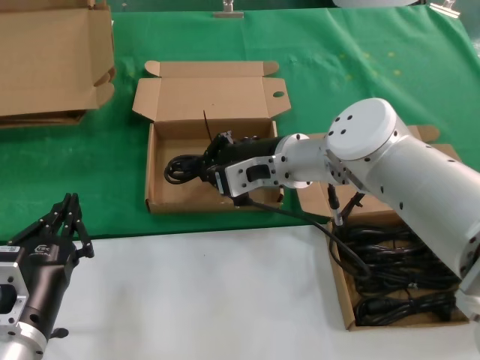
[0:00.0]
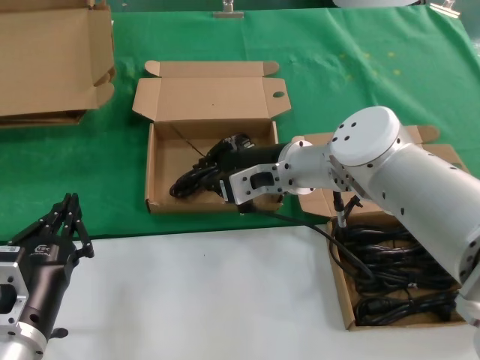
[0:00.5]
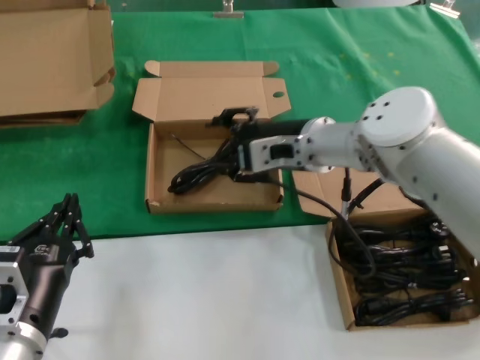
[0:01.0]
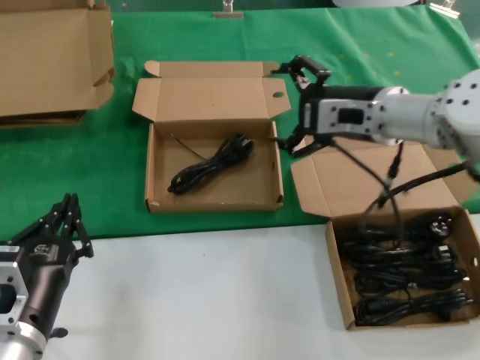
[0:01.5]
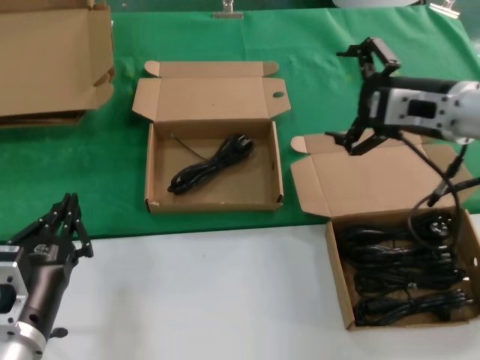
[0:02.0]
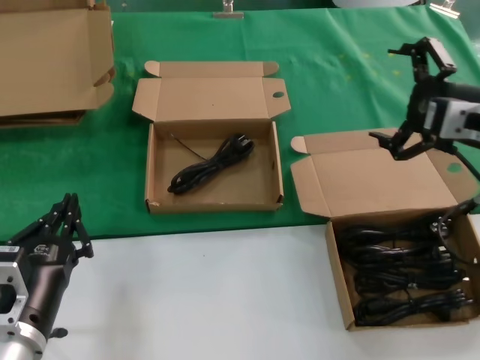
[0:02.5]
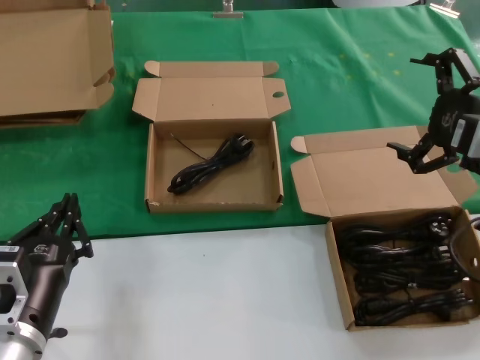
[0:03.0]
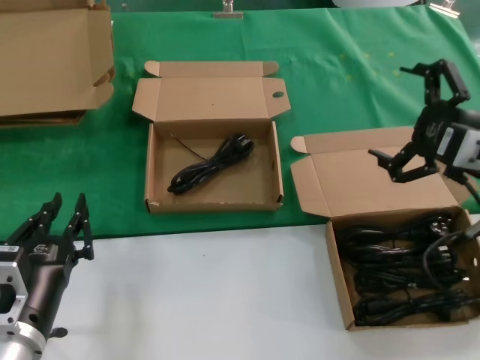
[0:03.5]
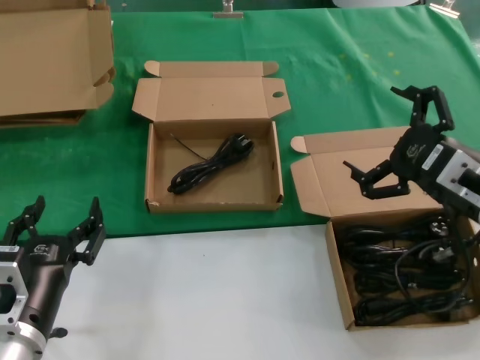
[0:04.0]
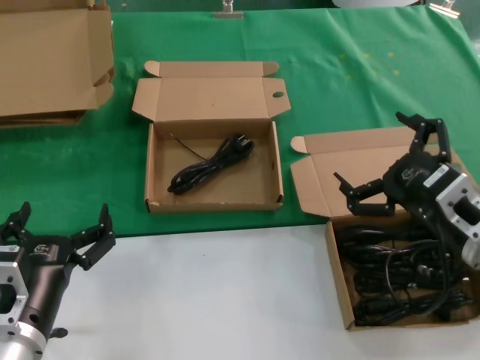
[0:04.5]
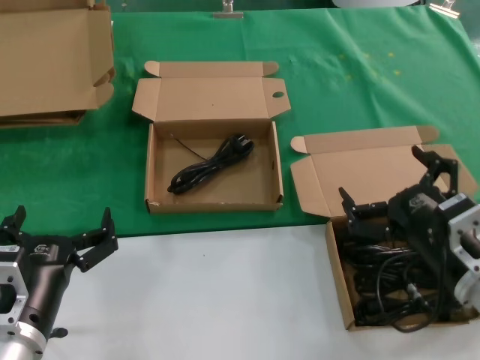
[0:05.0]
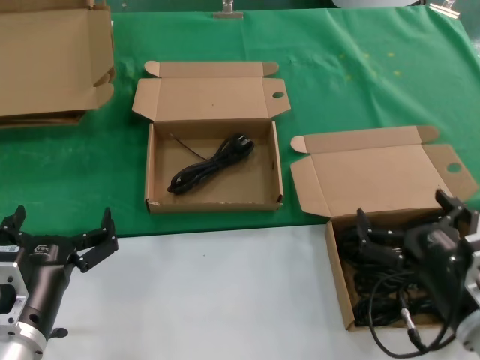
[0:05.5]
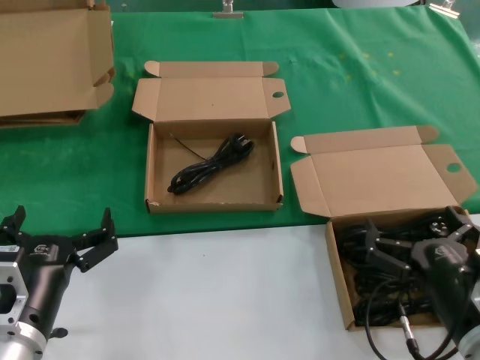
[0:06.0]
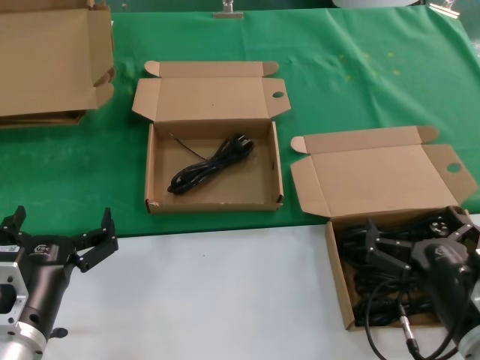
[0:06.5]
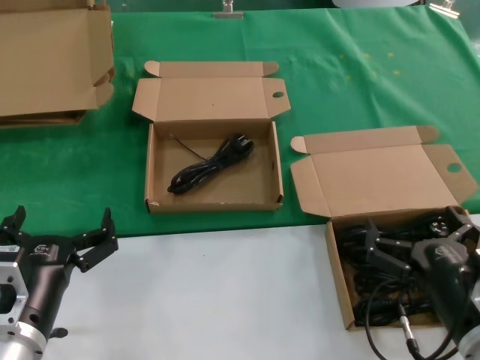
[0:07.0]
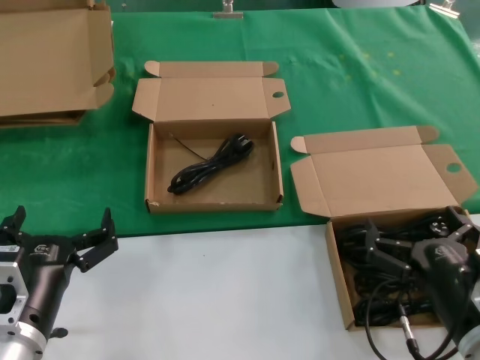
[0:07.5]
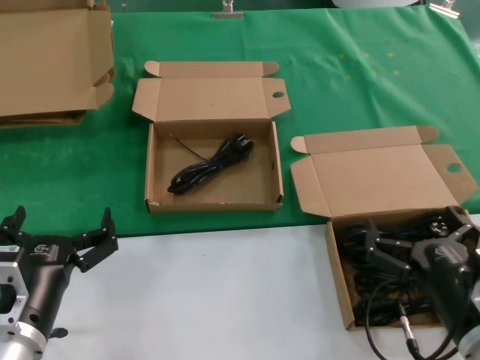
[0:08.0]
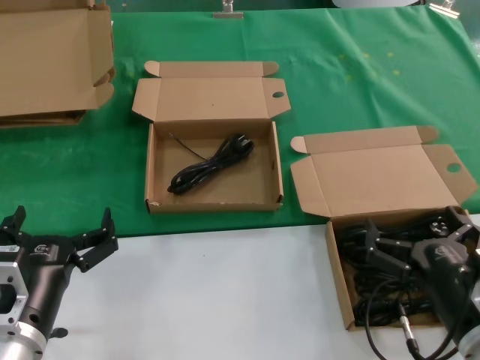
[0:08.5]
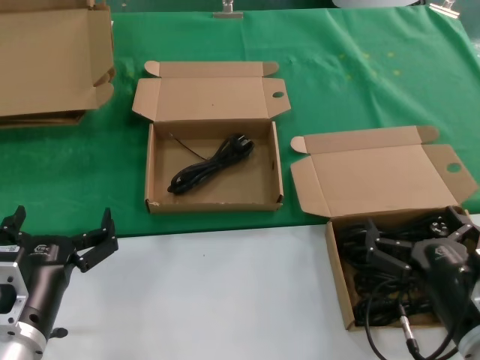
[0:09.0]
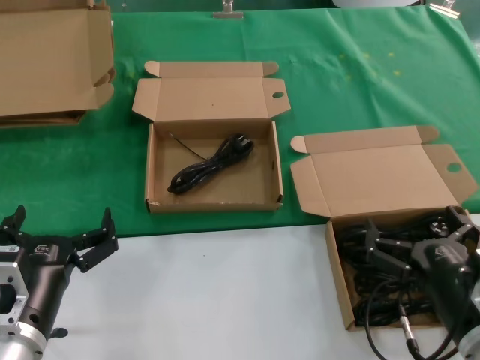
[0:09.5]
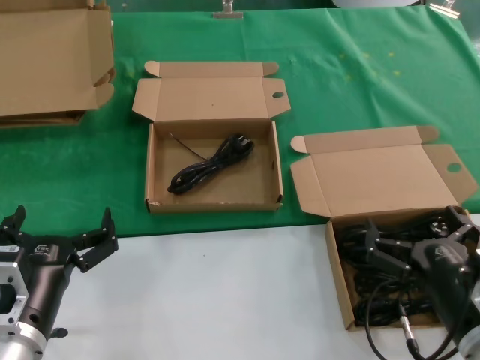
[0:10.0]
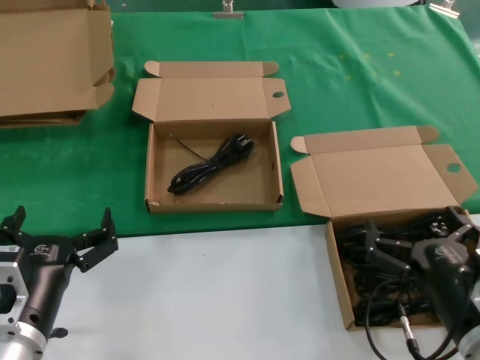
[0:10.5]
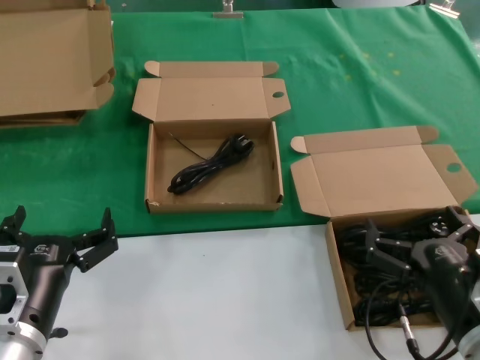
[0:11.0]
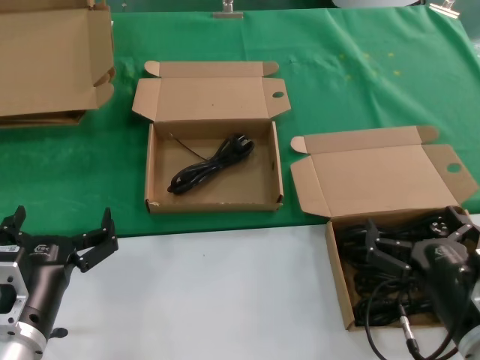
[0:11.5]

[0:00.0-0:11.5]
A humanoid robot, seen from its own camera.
Task of the whole recording: take the parts from the box containing them and put them into an empty box.
0:00.0 to 0:02.0: The right hand is displaced to the right and upward by some 20 cm.
0:02.0 to 0:04.0: The right hand moves backward and downward, some 10 cm.
0:04.0 to 0:06.0: The right hand moves downward and backward, roughly 20 cm.
0:06.0 to 0:11.5: Both hands stay about where they are.

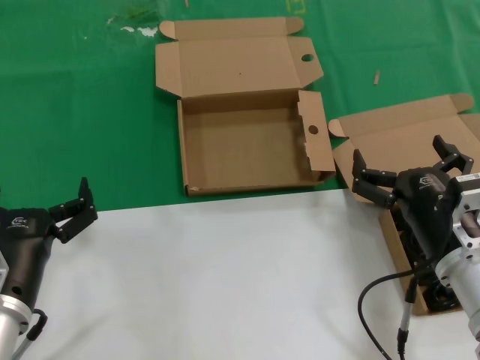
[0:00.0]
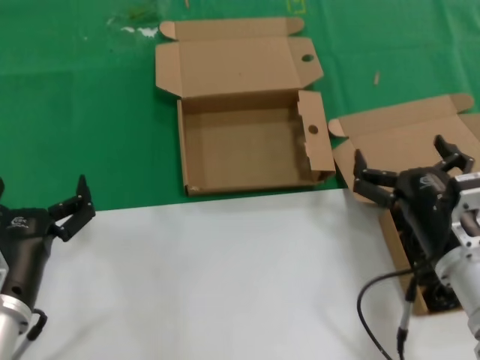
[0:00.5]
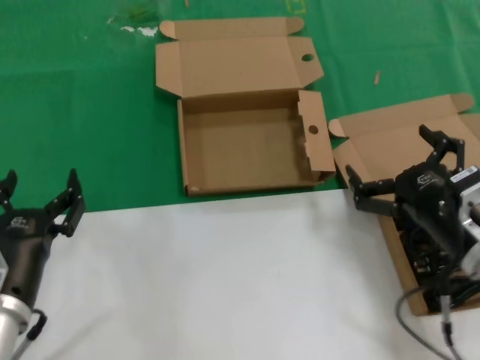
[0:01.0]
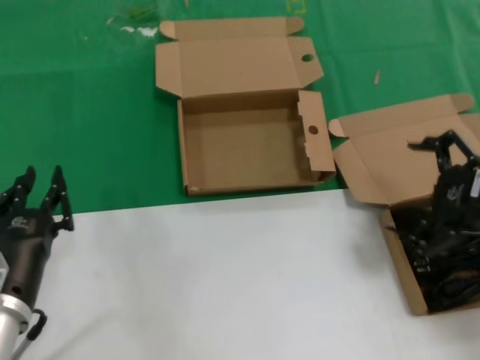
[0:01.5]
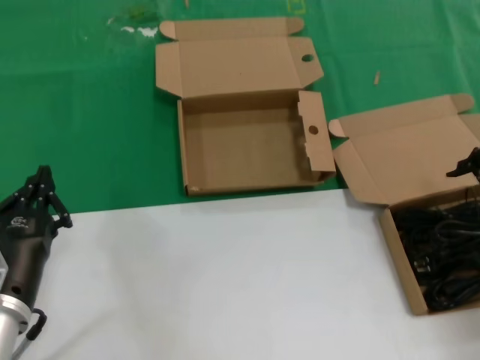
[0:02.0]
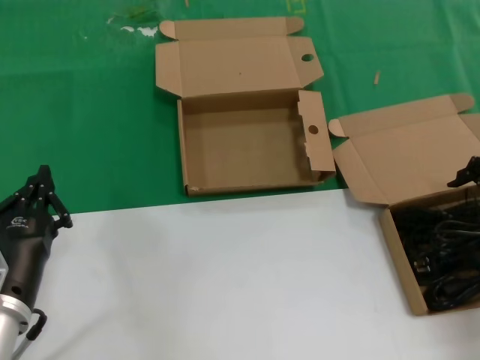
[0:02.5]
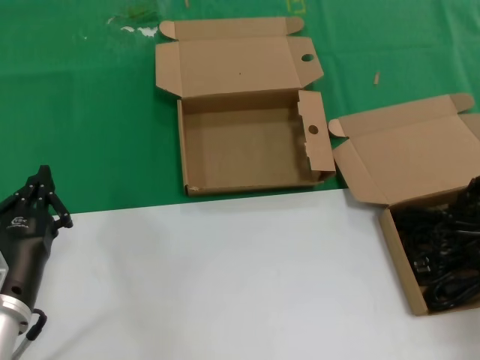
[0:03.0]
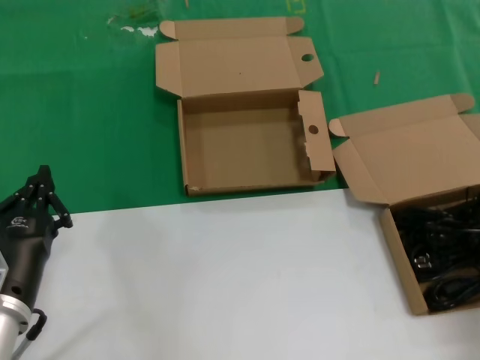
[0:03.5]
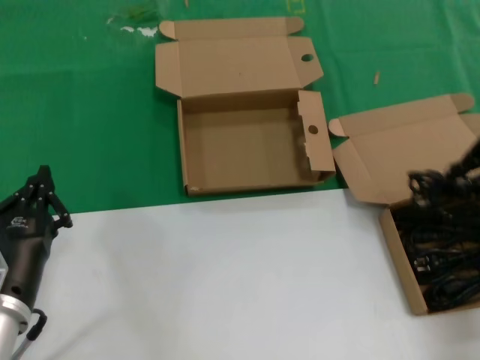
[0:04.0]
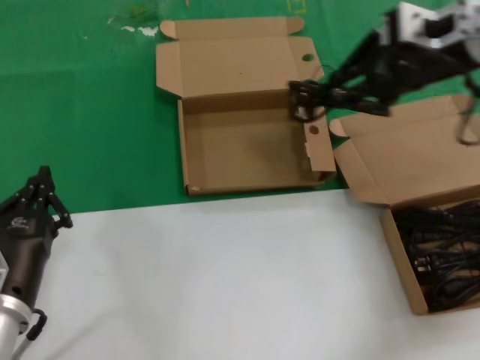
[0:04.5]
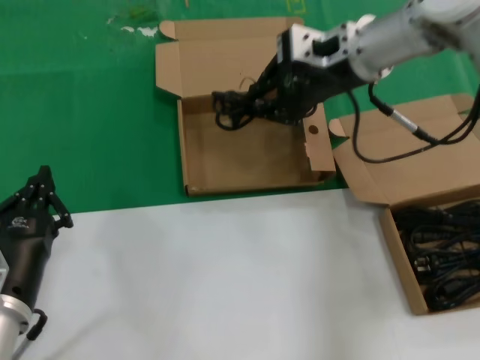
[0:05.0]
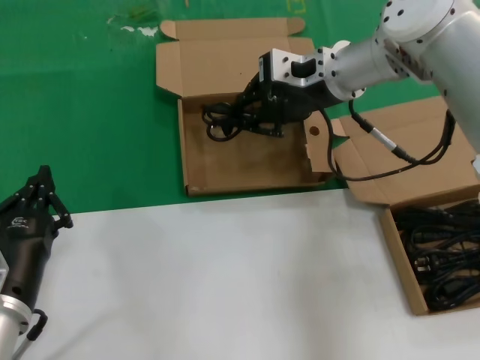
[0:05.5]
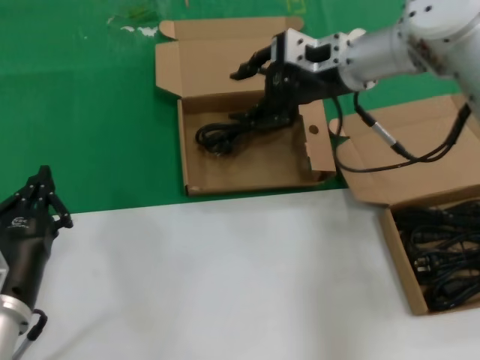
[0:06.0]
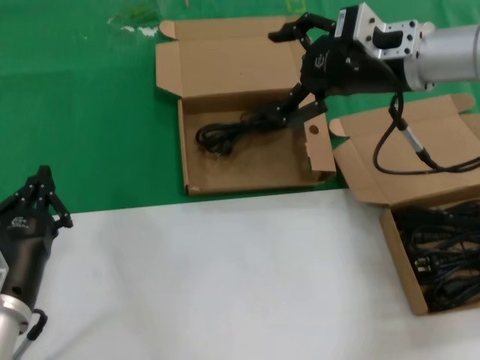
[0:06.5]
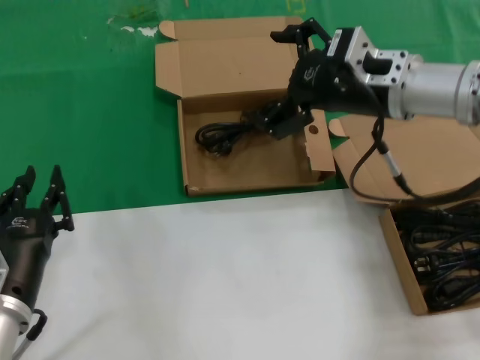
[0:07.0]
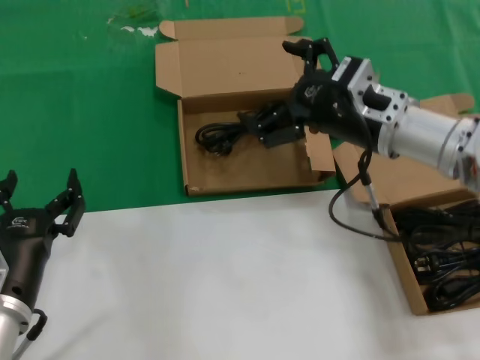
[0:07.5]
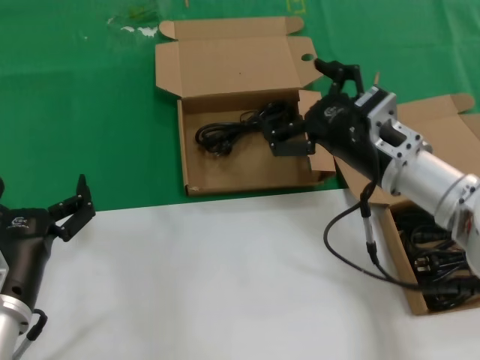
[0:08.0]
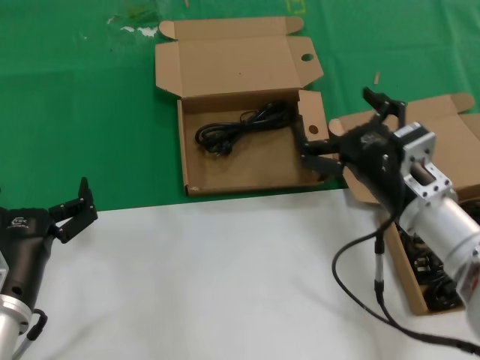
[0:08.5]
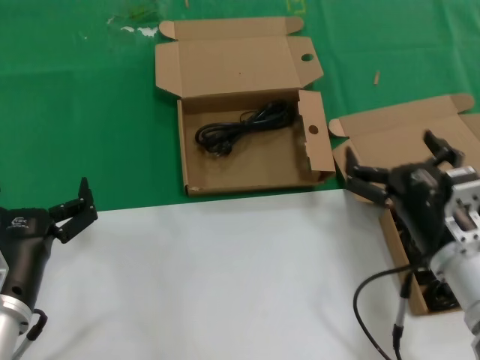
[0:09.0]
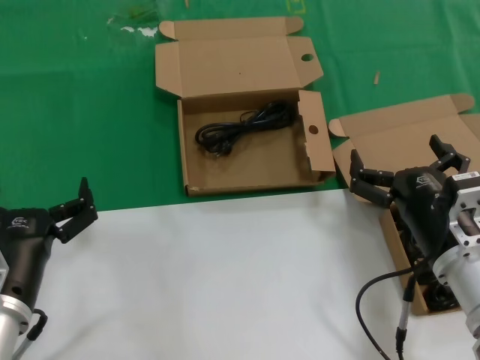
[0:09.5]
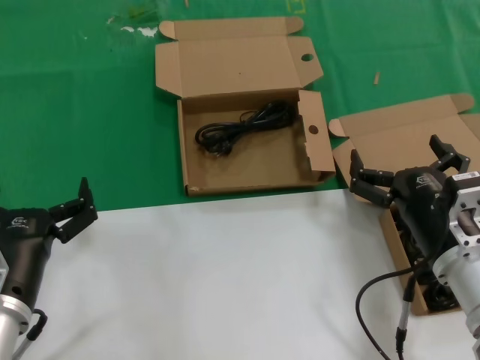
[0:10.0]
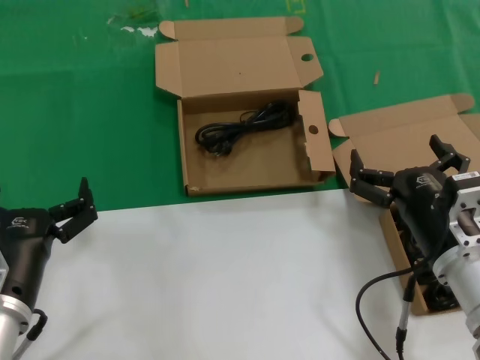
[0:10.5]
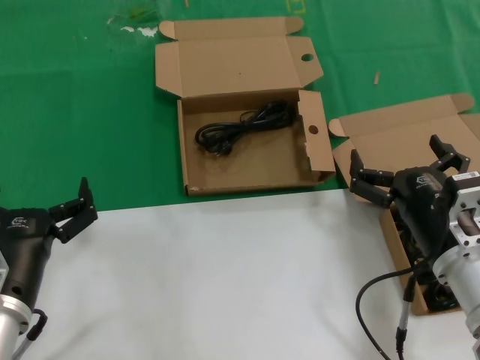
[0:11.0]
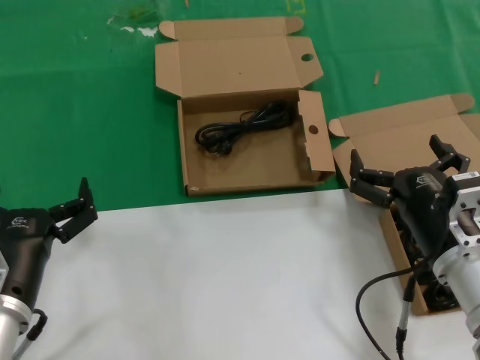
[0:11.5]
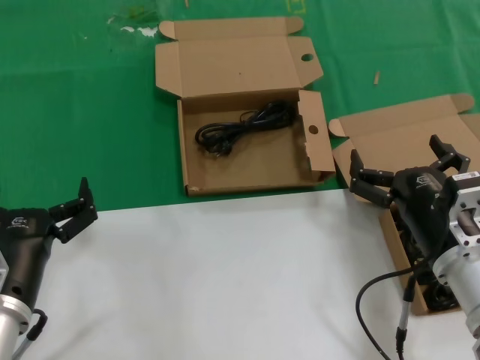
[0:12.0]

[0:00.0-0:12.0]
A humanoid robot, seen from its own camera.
Task of the whole recording: take the parts from the box containing them and put them into an empty box.
Step, 0:00.0 to 0:03.0: Grasp the data cable.
Step, 0:03.5 to 0:06.0: Place the data cable in the another box.
0:00.0 to 0:02.0: The right hand travels upward and to the right by roughly 25 cm.
0:02.0 to 0:04.0: The right hand heads upward, covering approximately 5 cm.
0:04.0 to 0:06.0: The right hand travels to the left and forward by roughly 25 cm.
0:06.0 to 0:08.0: The right hand moves backward and downward, about 20 cm.
0:08.0 to 0:10.0: The right hand goes about 15 cm backward and downward.
0:10.0 to 0:12.0: Neither hand changes place.

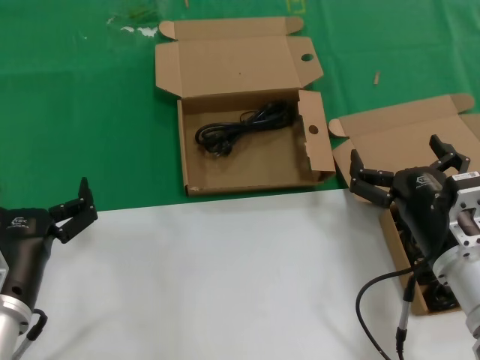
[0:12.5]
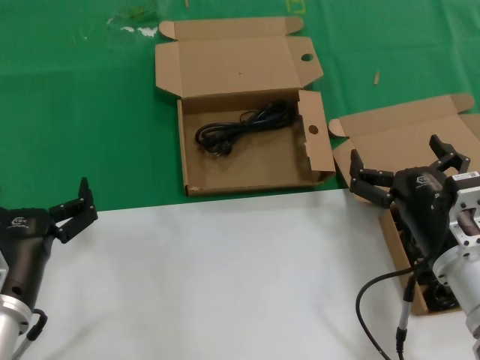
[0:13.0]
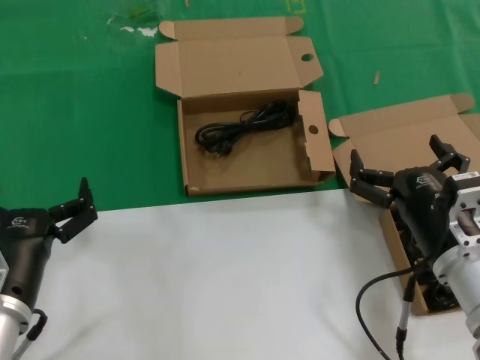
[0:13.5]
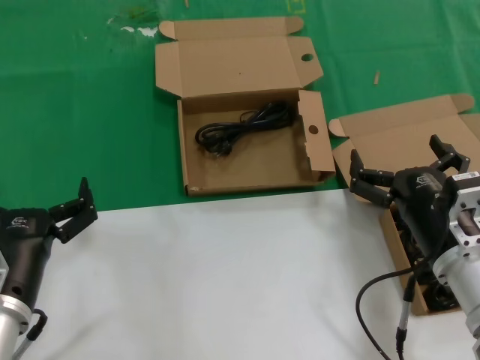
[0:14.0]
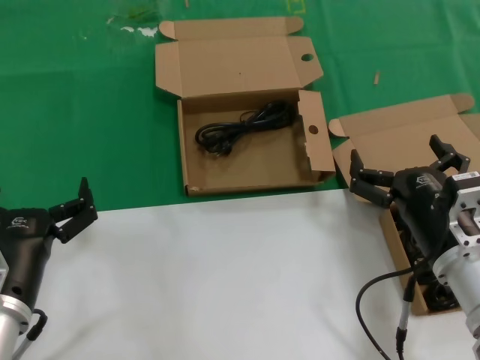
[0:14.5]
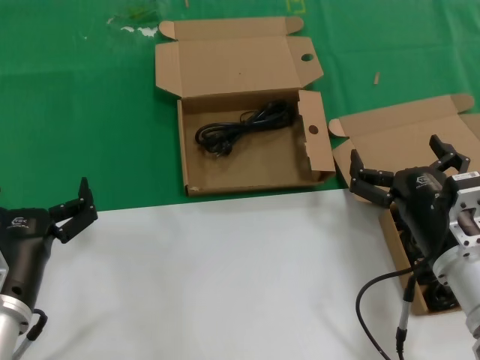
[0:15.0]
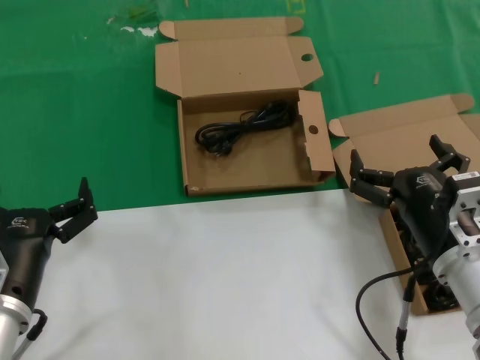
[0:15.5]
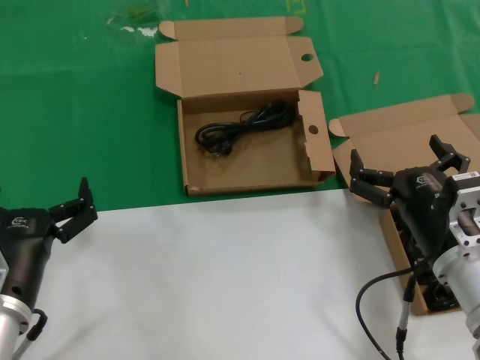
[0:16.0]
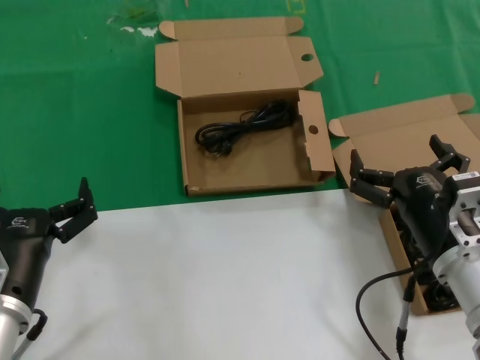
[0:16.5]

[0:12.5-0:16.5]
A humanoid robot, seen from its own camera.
Task of the whole recording: take the parts from the box containing them and put them into an empty box.
0:12.5 to 0:16.5: Both hands stay about where they are.
